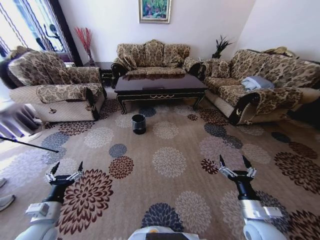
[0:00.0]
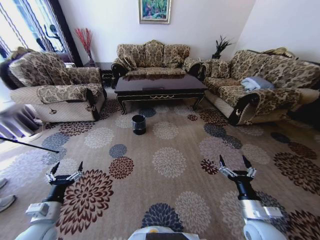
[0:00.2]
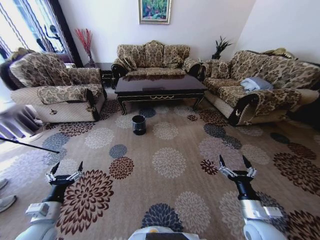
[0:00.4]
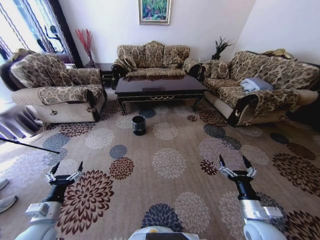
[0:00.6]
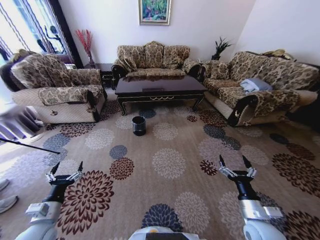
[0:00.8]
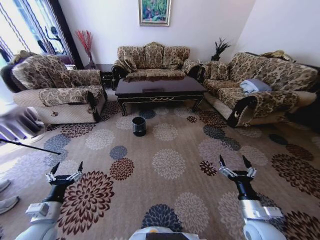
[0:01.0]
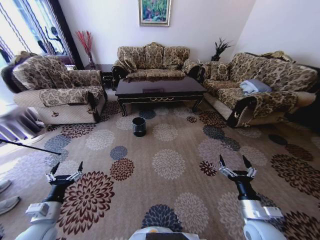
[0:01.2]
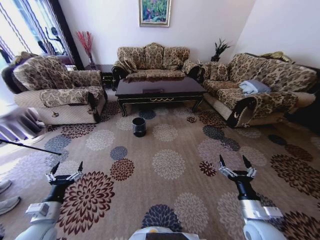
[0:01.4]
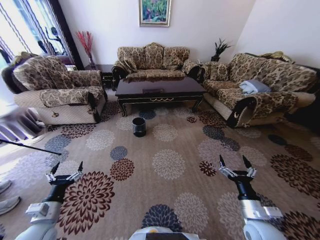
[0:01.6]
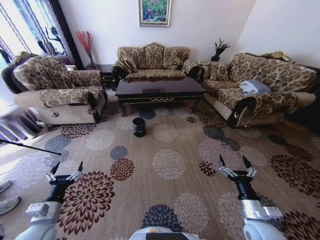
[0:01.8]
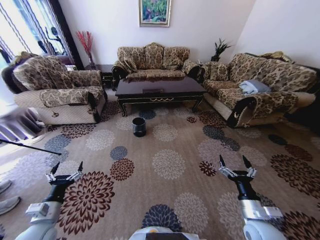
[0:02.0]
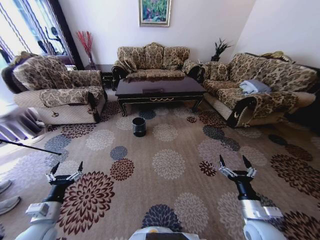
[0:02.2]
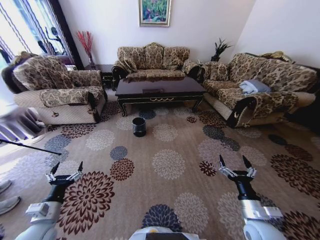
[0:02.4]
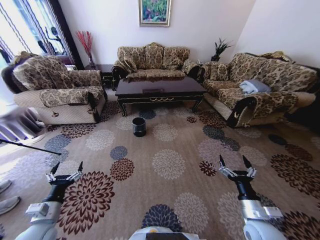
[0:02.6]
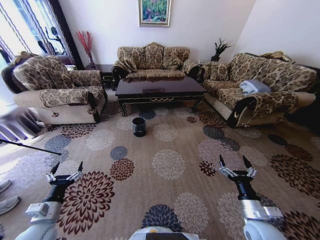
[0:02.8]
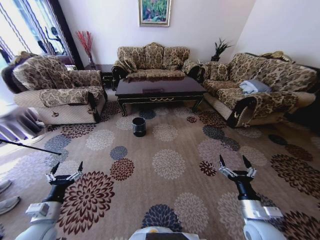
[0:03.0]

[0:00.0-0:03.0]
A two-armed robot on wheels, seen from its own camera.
Task of the whole recording: Move to the front of the table and pick up the trash from the floor, then place it into the trash bin.
1.6 to 3.0 s: Neither gripper changes place.

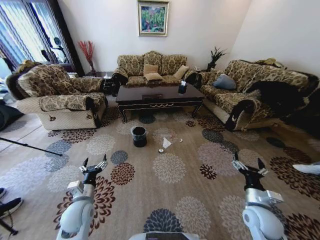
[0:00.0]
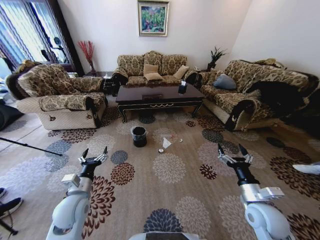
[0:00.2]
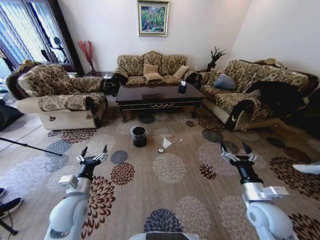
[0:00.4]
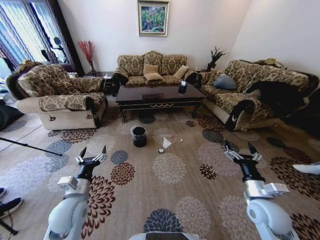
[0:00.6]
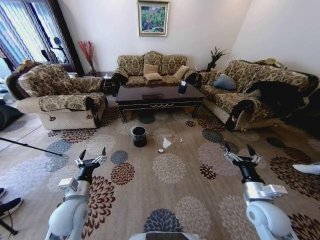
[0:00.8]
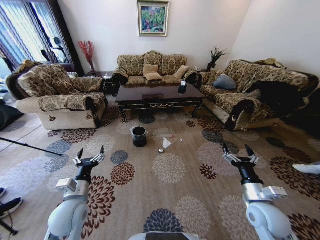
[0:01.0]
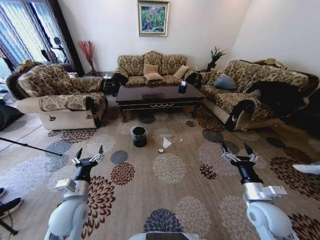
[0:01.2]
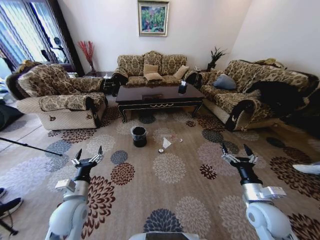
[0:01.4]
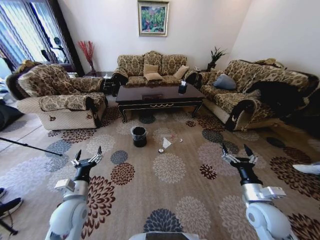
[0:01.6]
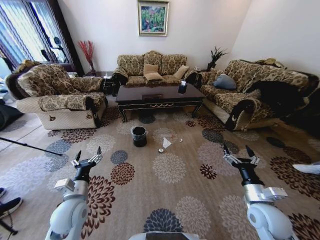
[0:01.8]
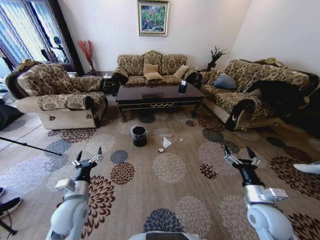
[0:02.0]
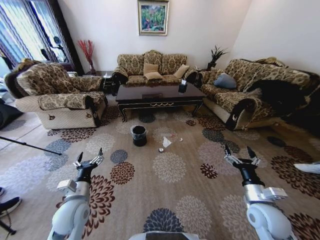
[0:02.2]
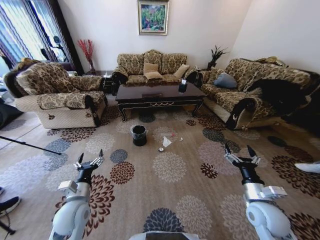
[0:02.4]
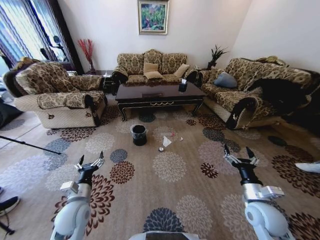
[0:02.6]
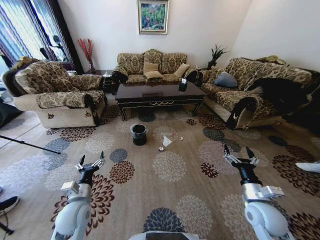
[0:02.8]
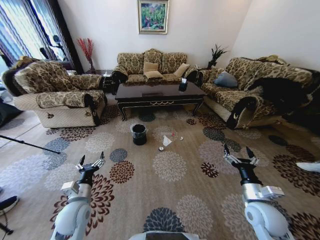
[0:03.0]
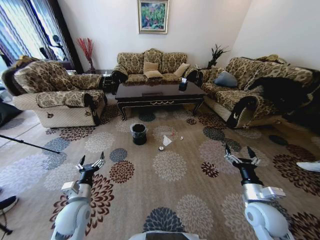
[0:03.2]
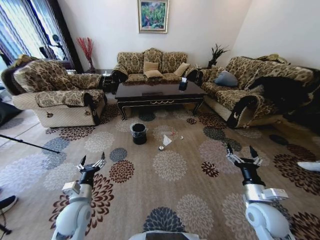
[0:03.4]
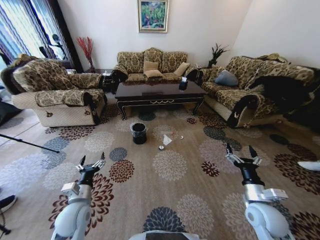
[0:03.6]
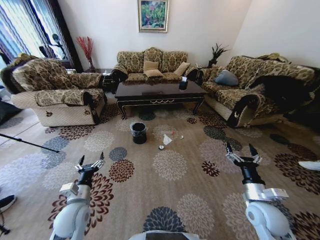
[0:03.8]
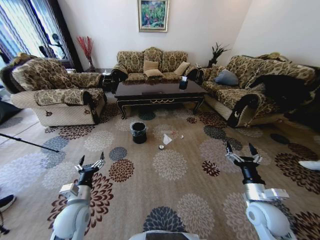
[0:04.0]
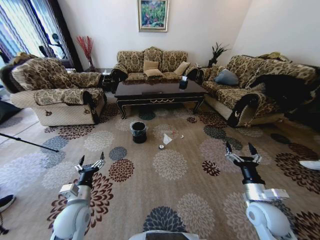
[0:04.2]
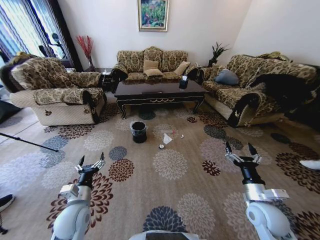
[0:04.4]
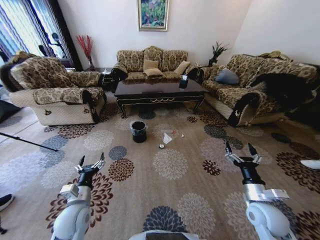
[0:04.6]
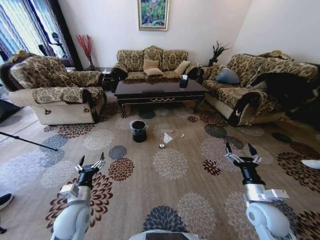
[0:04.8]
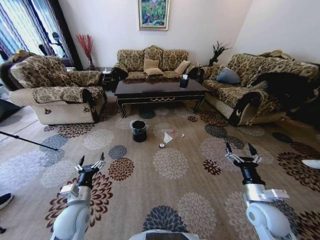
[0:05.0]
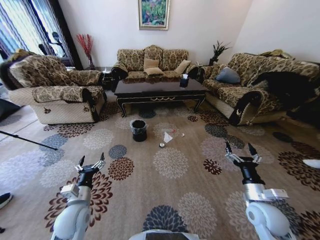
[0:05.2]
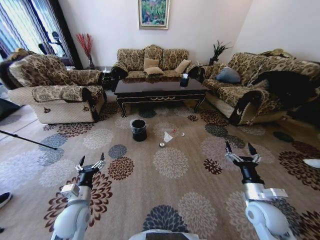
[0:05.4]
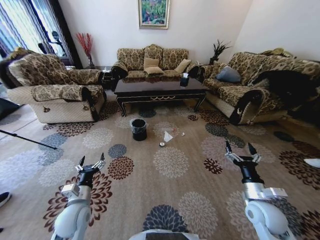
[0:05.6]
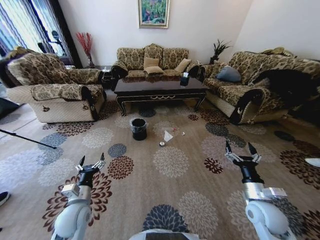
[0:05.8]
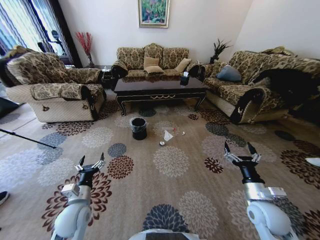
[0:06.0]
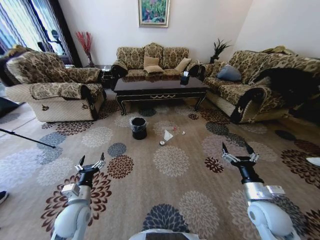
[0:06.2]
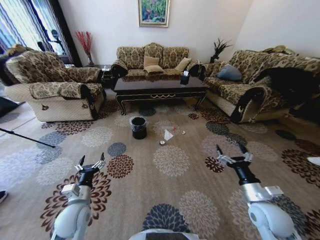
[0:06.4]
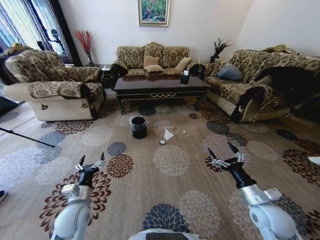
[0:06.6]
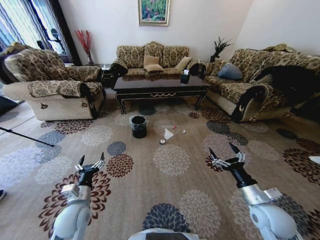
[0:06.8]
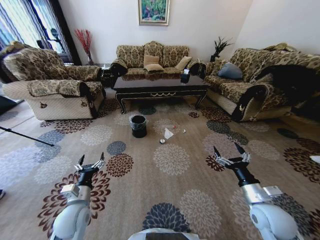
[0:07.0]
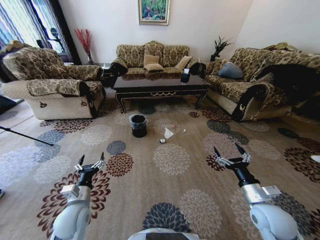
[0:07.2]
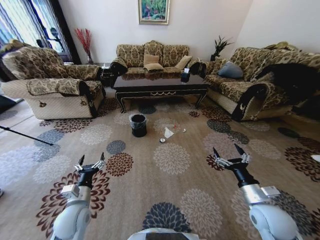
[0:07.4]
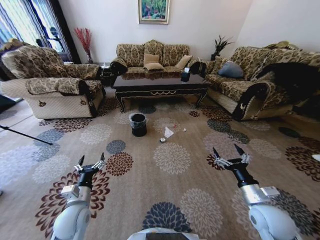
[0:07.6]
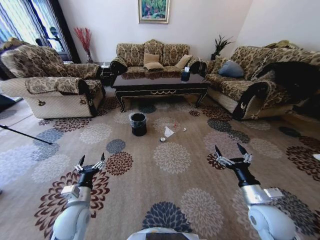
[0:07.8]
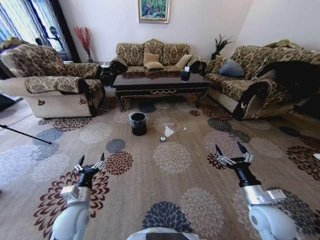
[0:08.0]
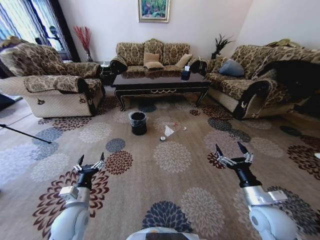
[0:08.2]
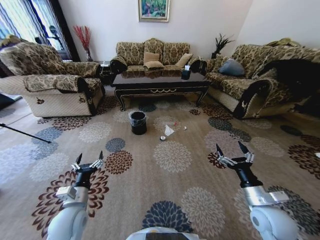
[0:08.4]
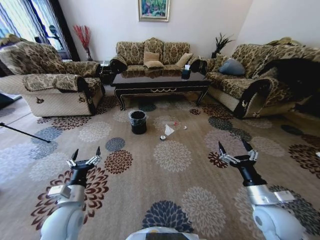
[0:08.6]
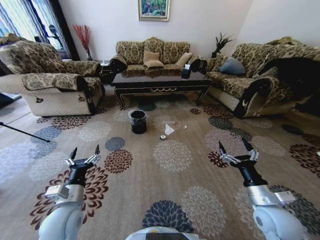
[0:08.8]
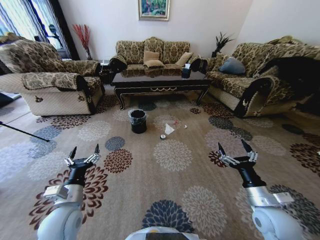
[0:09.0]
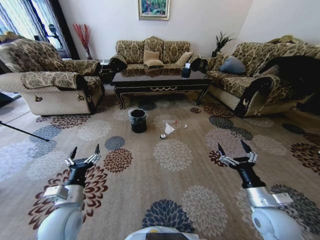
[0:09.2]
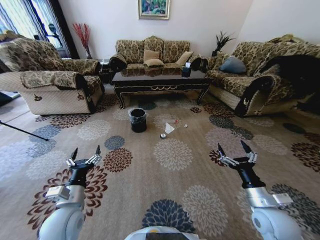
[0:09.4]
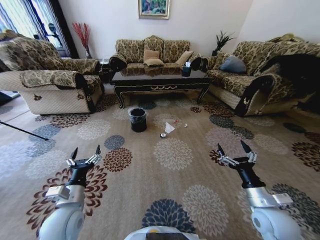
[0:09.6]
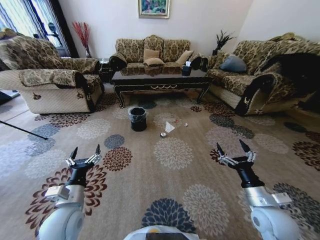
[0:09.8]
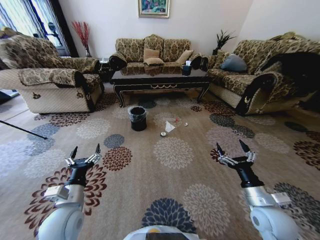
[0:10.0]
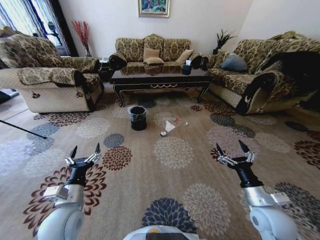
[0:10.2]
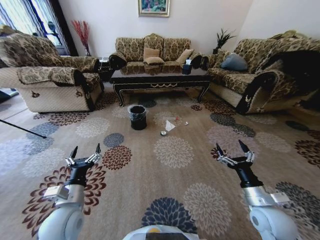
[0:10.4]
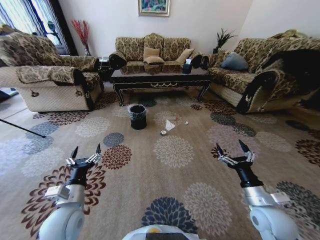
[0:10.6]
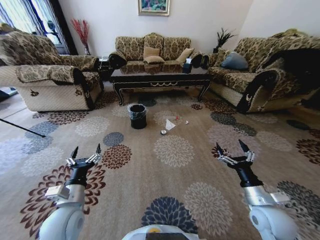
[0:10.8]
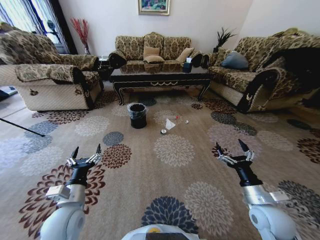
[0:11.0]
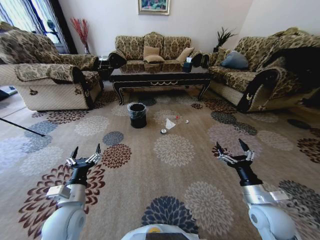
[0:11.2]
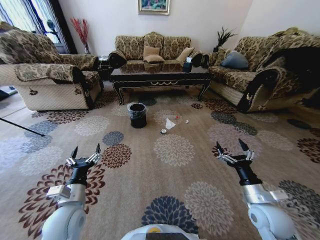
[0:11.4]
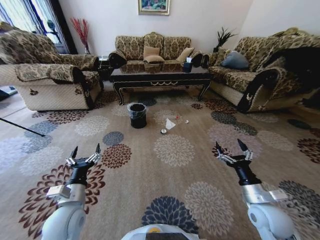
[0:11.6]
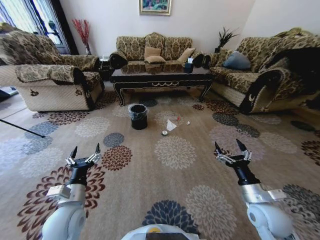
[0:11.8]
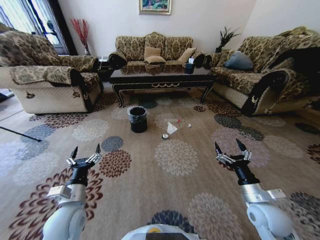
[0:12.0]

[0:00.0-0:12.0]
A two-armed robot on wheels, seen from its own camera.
Task of the whole recording: Move to the front of the table and pick up the trash from the floor, then place it into the trash bin.
3.0 to 4.4 s: The grippers make only small movements.
7.6 to 9.0 s: The left gripper goes approximately 5 cm upward.

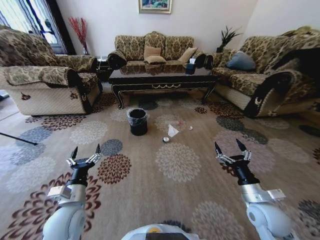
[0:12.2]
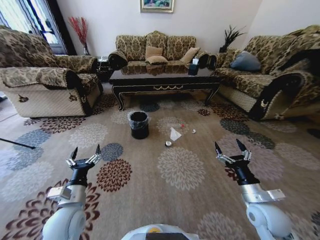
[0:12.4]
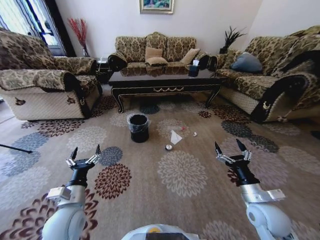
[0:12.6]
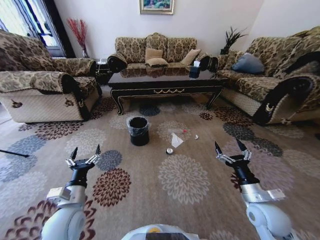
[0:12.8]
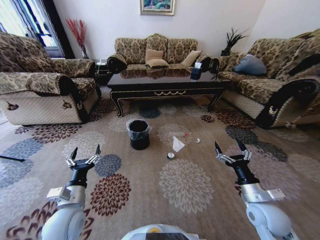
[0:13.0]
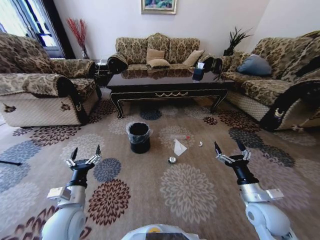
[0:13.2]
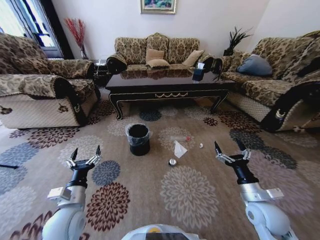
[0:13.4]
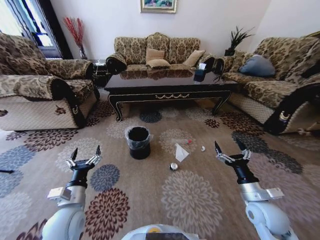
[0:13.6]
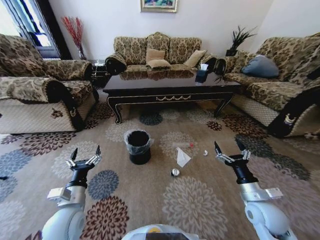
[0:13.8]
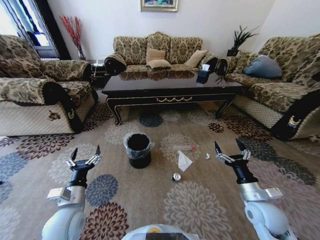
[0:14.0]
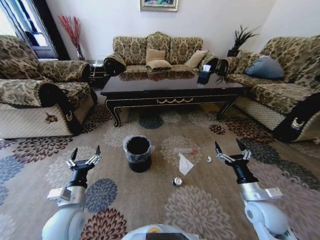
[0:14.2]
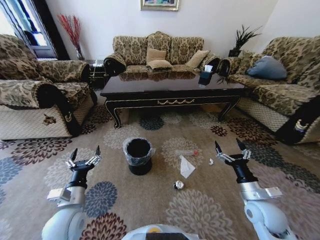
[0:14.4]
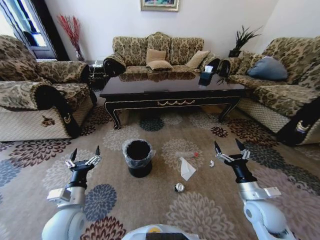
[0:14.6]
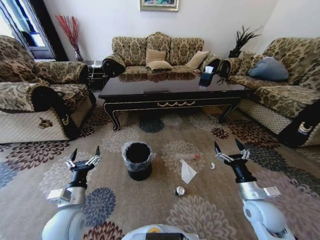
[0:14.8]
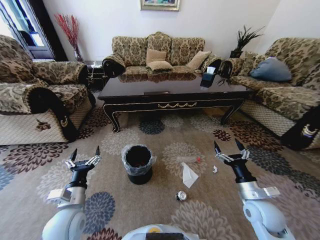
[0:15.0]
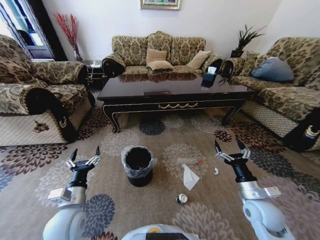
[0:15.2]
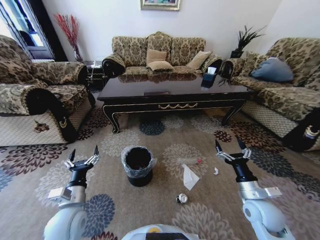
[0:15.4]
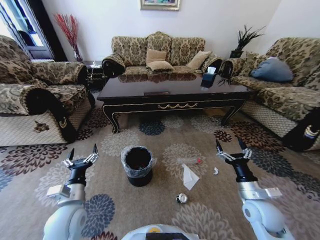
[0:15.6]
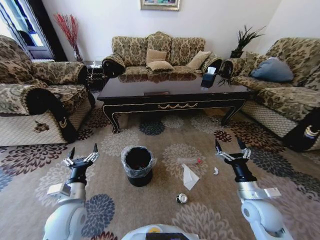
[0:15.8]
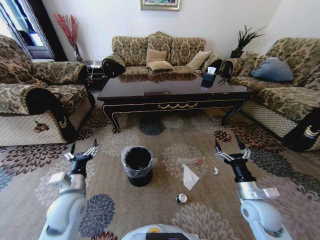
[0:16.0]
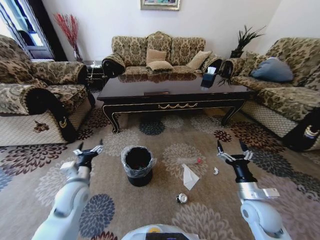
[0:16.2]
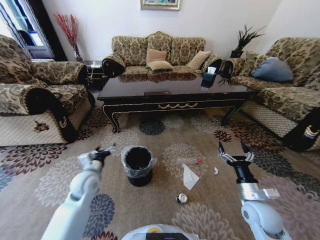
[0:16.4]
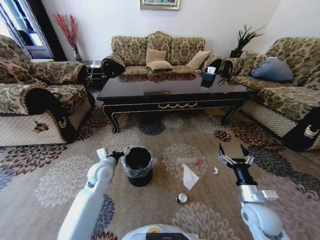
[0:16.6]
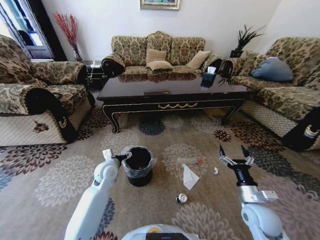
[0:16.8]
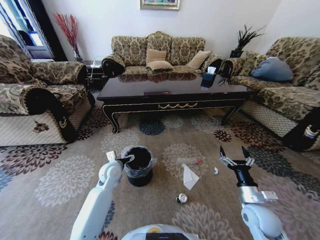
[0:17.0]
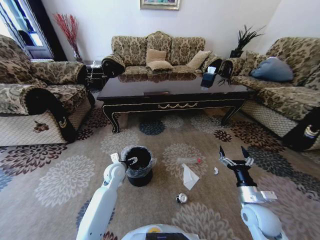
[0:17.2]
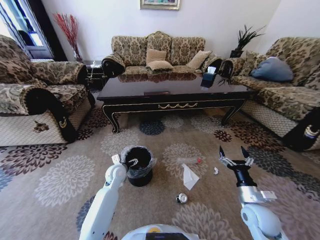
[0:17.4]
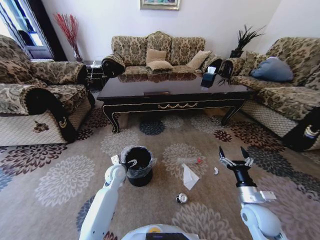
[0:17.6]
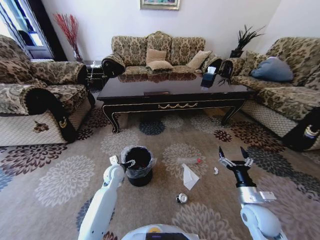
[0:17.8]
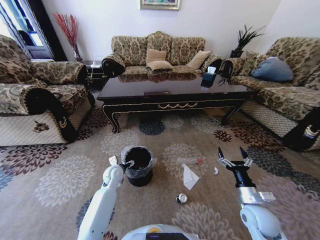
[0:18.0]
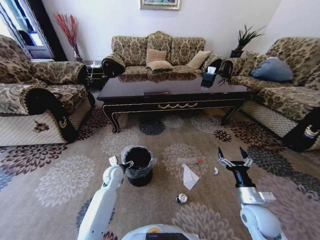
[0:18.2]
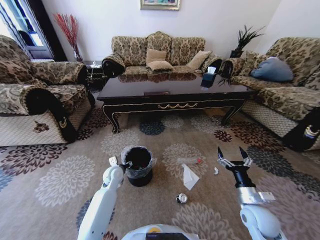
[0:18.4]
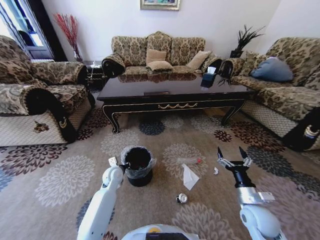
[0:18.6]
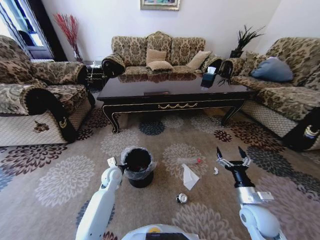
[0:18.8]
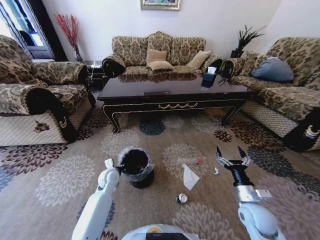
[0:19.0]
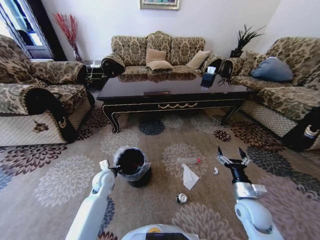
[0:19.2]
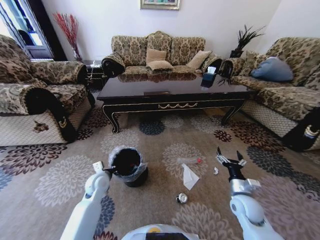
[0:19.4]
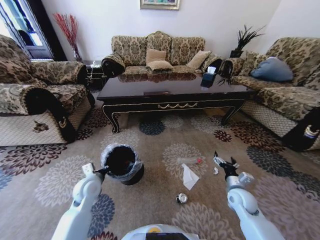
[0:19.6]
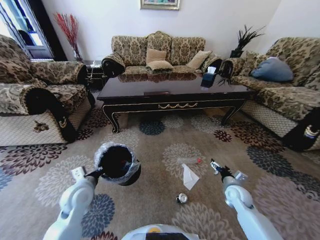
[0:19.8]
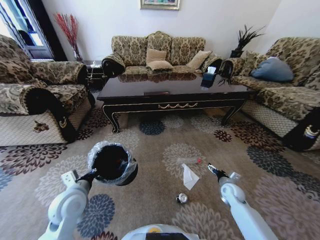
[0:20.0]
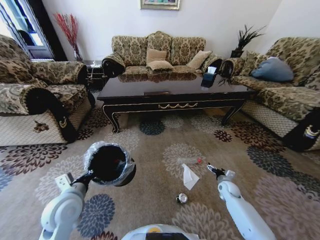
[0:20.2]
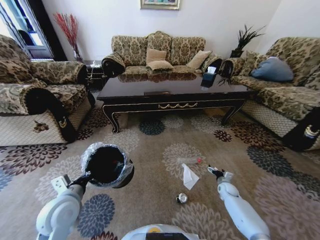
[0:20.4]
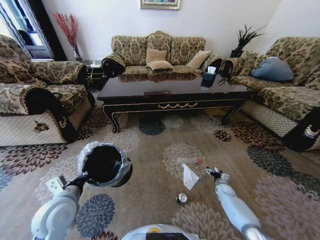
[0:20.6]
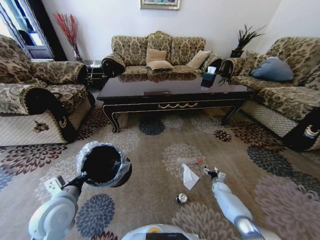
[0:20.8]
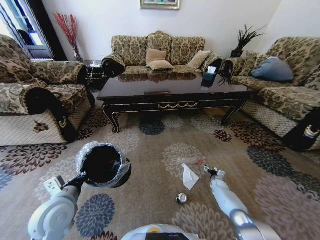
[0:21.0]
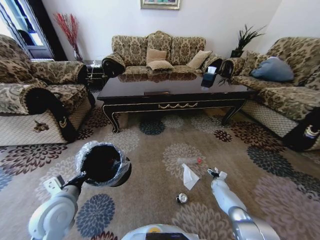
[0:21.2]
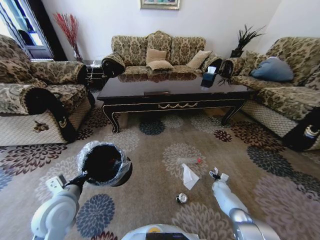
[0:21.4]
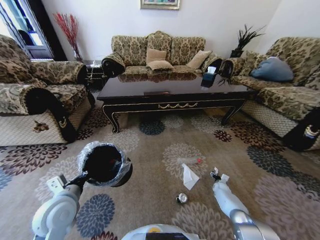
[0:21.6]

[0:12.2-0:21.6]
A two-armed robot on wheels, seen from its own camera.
Task of the whole recording: Move to the front of the table and pick up the trash from the floor, then place it into the trash bin.
15.4 to 17.0 s: The left gripper heads forward, covering some 20 cm.
17.0 to 18.4 s: The left gripper goes about 5 cm downward, and closes.
18.4 to 20.0 s: The left gripper is displaced backward, upward and to the left by roughly 20 cm, and closes. Meanwhile the right gripper travels forward and downward by approximately 15 cm.
20.0 to 21.6 s: The right gripper heads downward and forward, covering about 15 cm.
